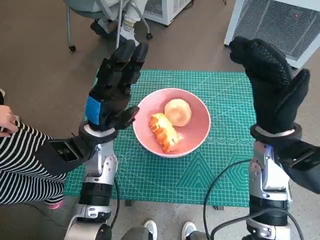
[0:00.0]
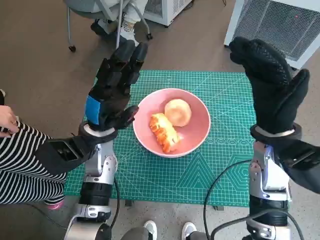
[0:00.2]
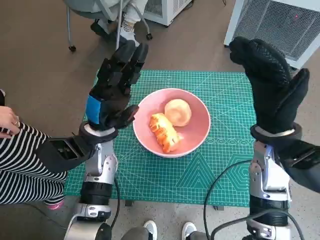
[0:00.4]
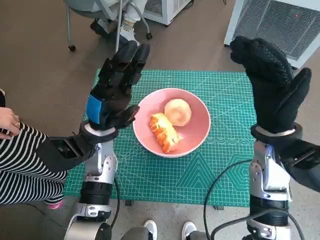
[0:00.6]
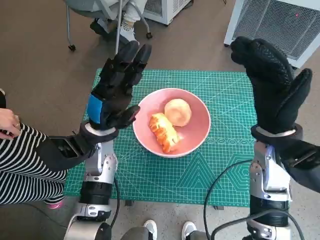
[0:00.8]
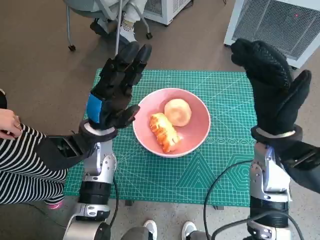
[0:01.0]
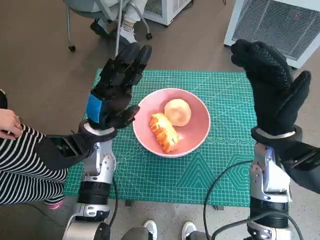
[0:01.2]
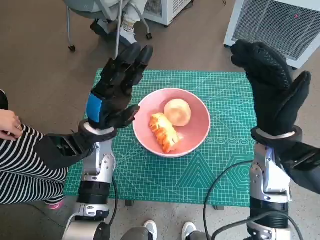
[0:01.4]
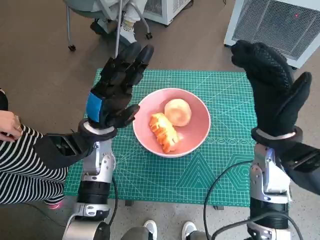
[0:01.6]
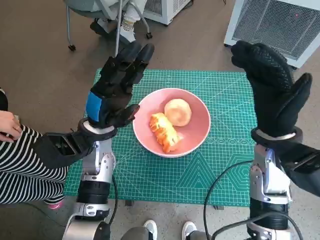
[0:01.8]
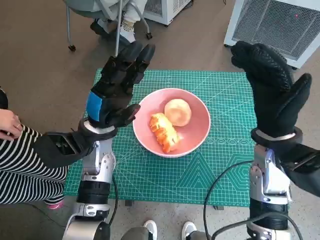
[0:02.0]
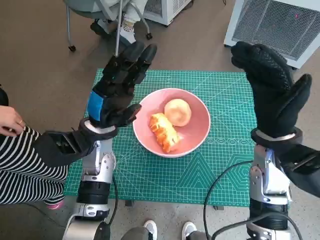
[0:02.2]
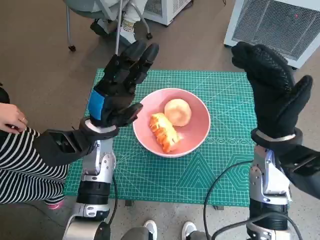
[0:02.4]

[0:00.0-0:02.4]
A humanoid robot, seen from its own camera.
Task of the whole recording: Push the bowl into the center of the table and put the bread into the bowl.
0:00.0 to 0:01.2: The two hands keep their place.
0:01.2 to 0:02.4: The two hands keep their place.
